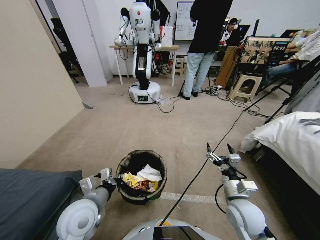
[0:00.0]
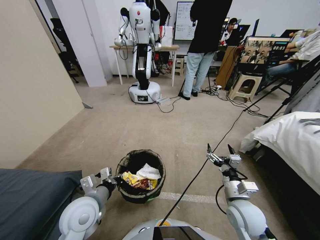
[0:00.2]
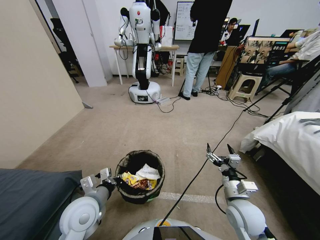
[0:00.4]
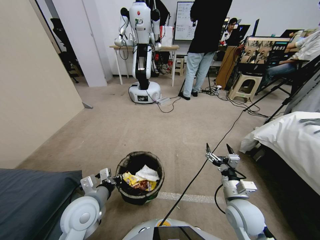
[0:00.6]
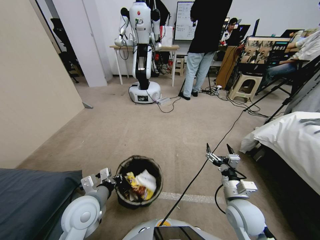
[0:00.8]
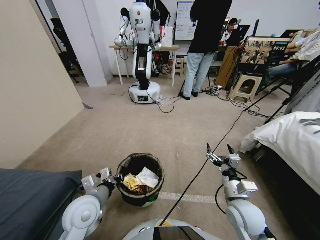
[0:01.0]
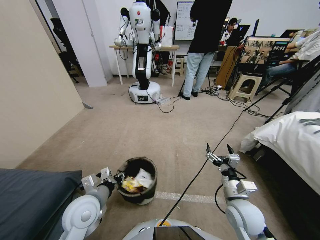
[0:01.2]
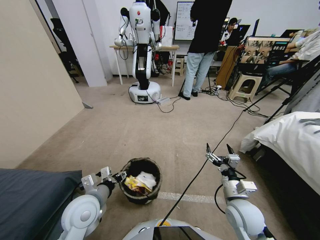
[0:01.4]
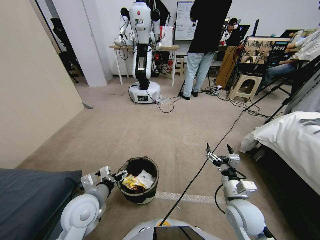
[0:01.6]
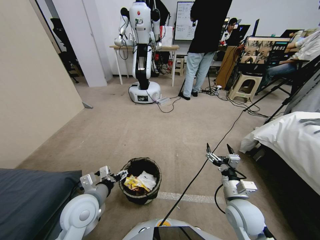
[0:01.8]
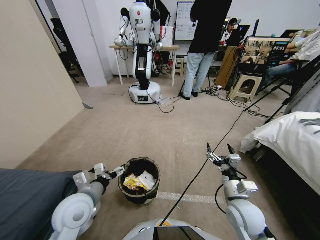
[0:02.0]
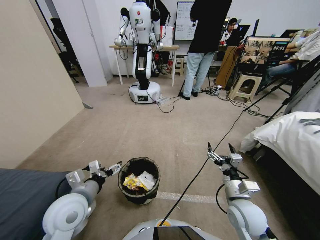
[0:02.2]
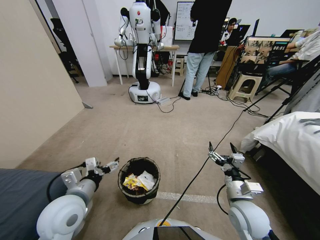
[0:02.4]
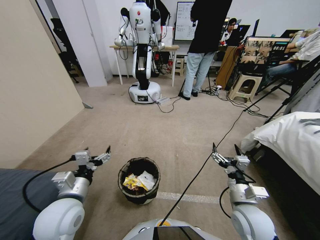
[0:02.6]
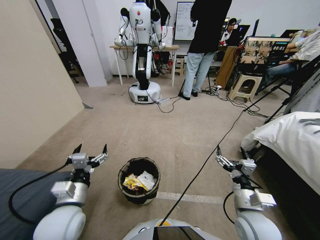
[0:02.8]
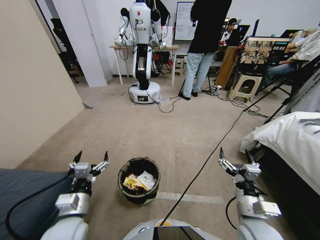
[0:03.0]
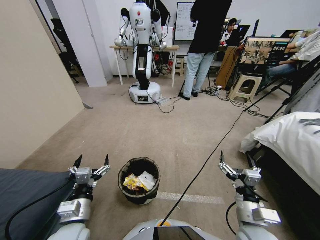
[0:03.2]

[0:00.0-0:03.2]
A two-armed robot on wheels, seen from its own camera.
Task of the whole recording: Pick up the trash bin, then pick up the garbage from the floor and place it into the trash bin.
0:00.0 to 0:01.6: The left gripper opens its fingers.
0:01.6 to 0:03.2: Both grippers travel together backward, roughly 5 cm.
